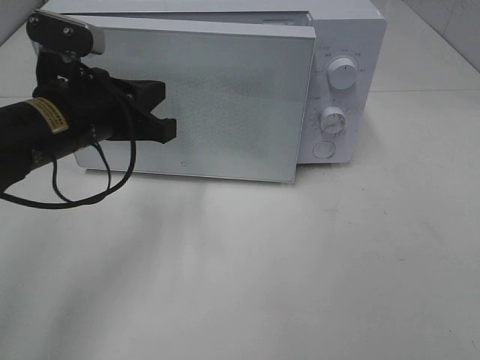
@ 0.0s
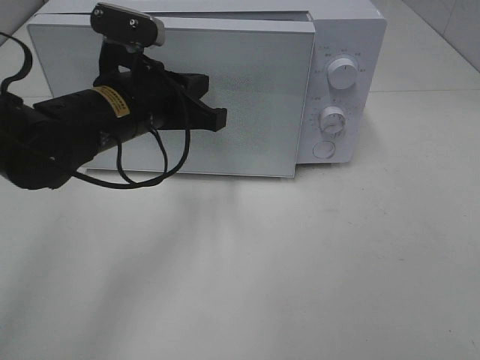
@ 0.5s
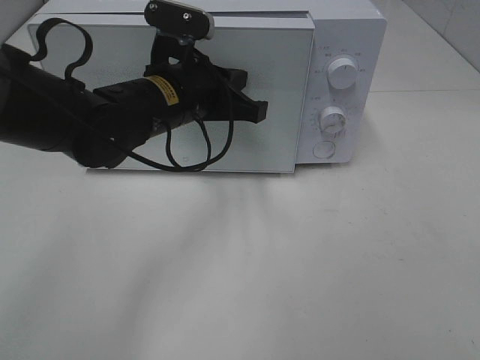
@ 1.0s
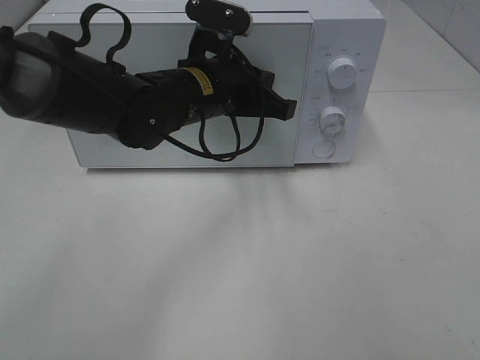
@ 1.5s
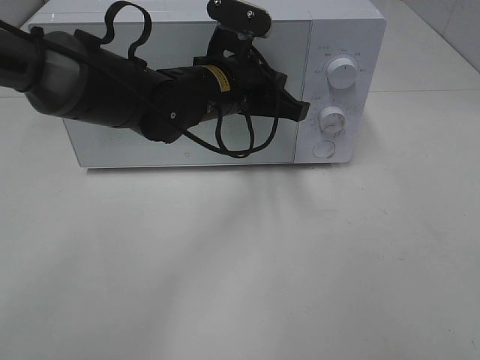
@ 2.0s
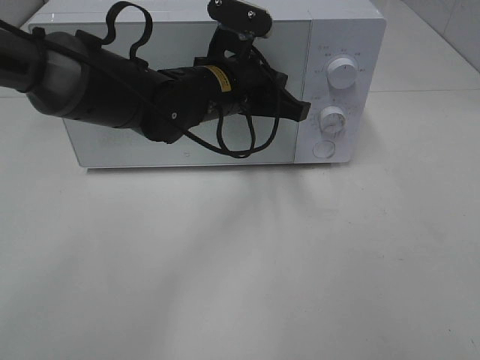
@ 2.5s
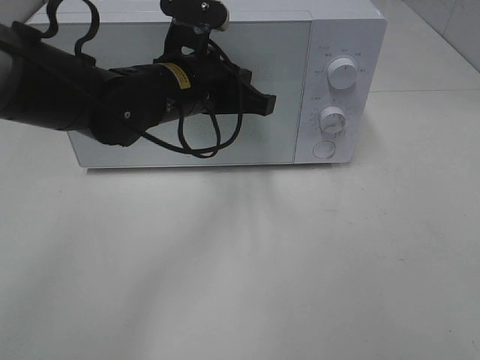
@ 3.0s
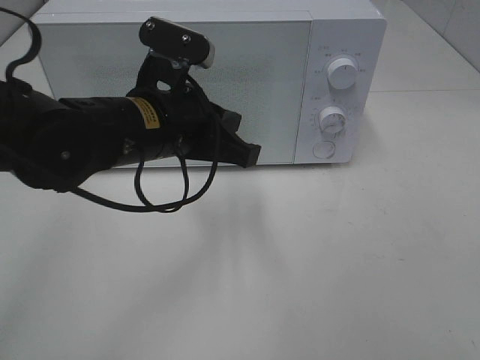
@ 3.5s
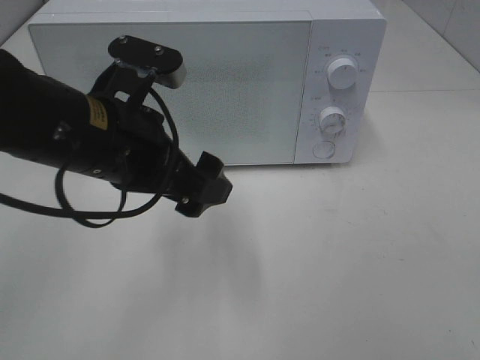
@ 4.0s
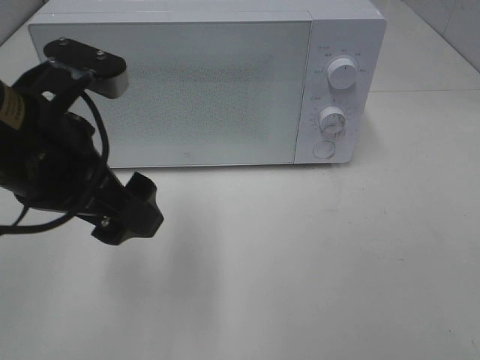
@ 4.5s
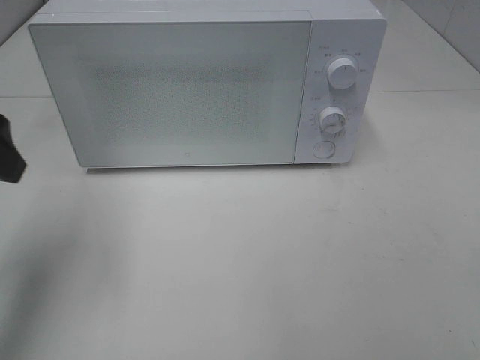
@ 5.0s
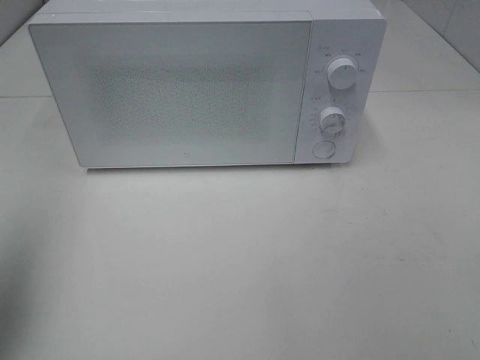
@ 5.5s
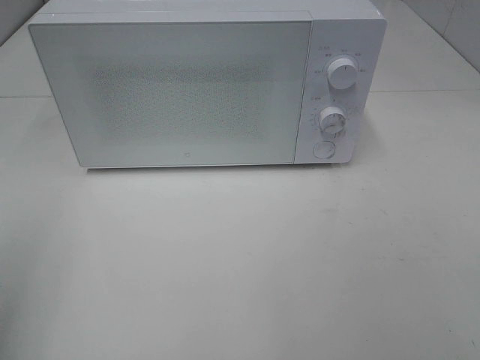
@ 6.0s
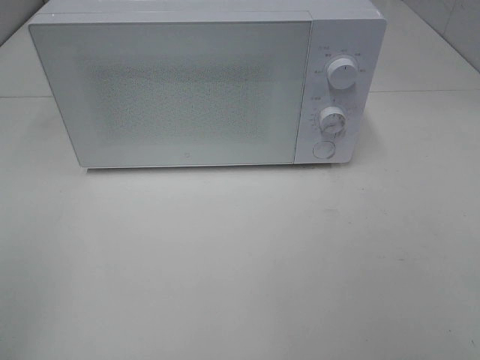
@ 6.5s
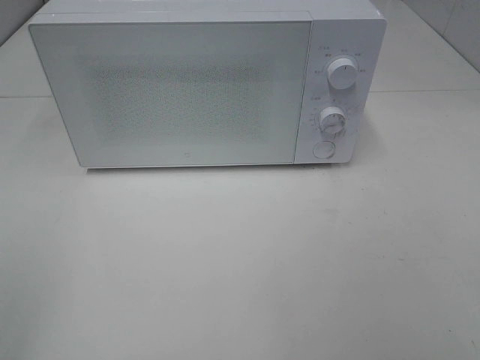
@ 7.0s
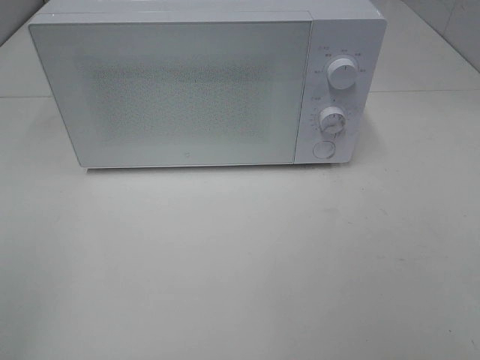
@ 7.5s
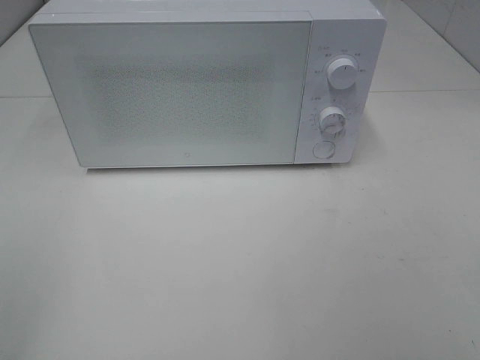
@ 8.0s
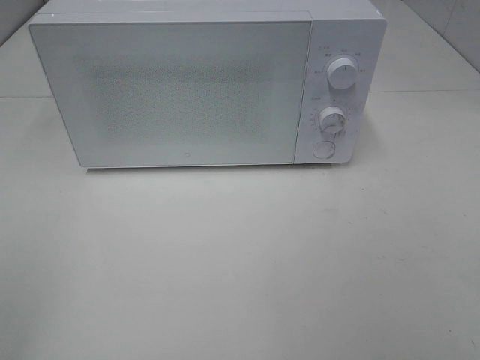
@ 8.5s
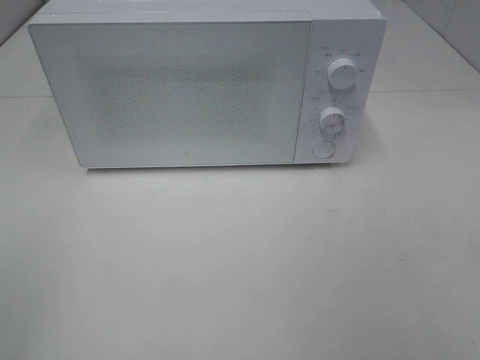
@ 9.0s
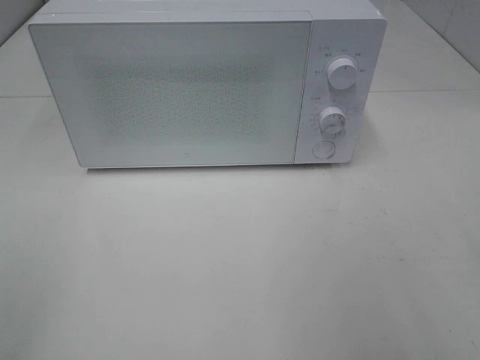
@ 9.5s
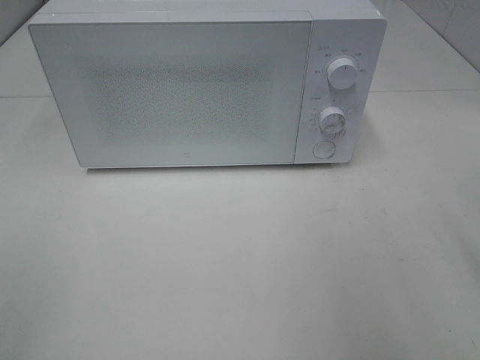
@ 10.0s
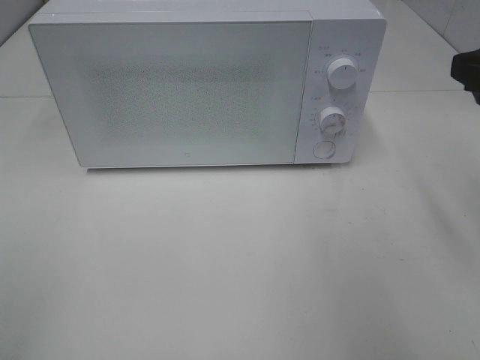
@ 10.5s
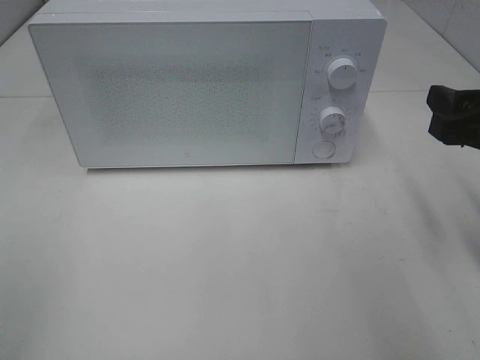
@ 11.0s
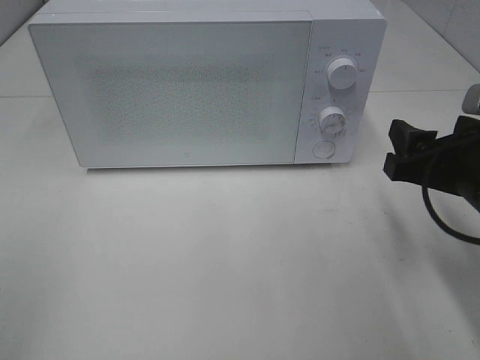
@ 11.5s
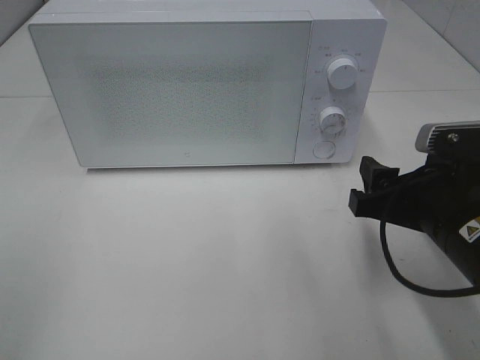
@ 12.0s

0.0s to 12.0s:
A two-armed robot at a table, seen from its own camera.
Task of the whole recording: Heat Sandwich.
Step, 0.0s to 3.0s: Left hand: close the microwave door.
0.0s to 2.0s: The left gripper heads to the right and forward, covering some 15 cm.
2.0s to 4.0s: The left gripper goes about 15 cm backward and to the left, and opens up.
4.0s to 6.0s: The left gripper travels to the left and backward by about 25 cm.
10.0s to 12.0s: The right gripper heads downward and to the left, covering approximately 15 cm.

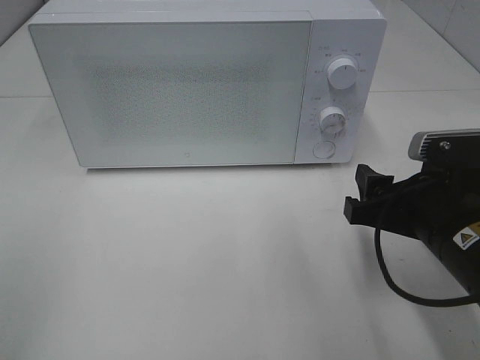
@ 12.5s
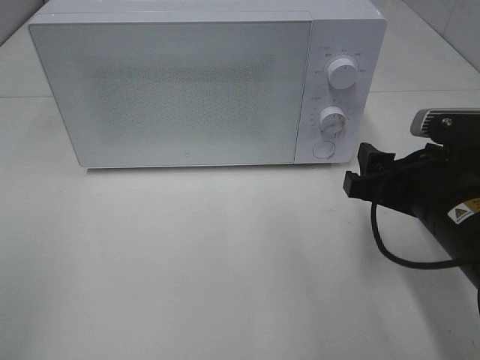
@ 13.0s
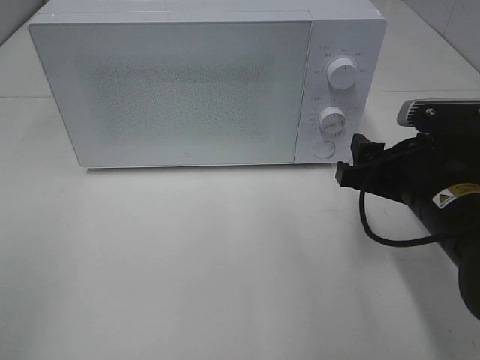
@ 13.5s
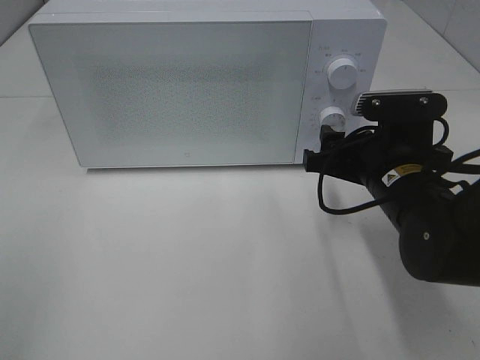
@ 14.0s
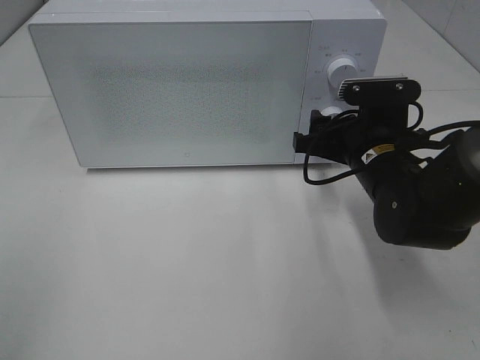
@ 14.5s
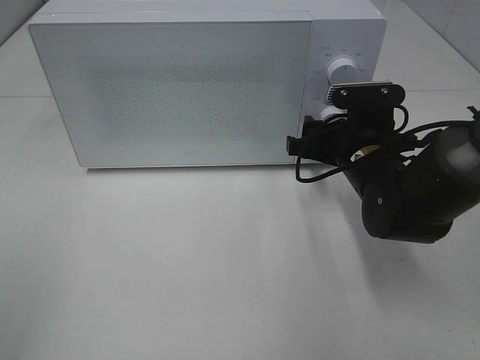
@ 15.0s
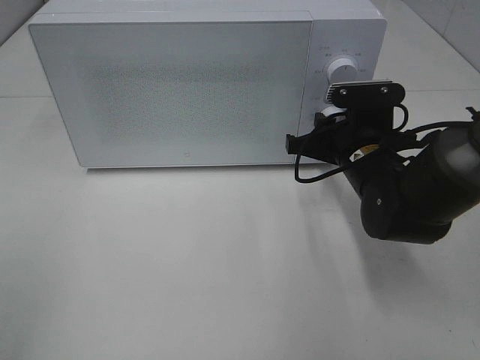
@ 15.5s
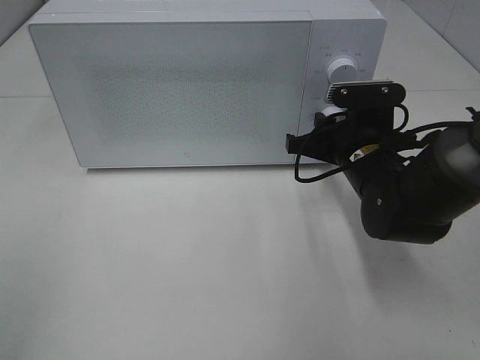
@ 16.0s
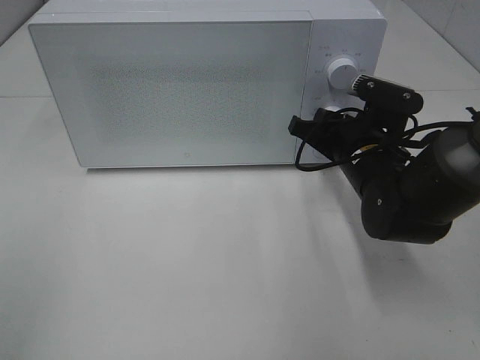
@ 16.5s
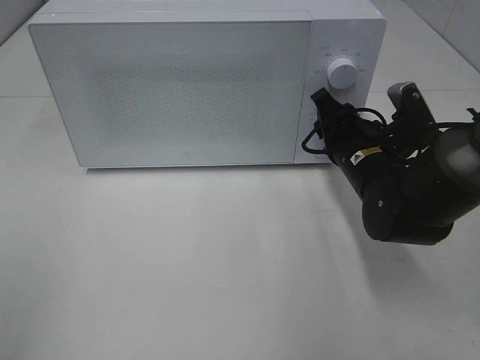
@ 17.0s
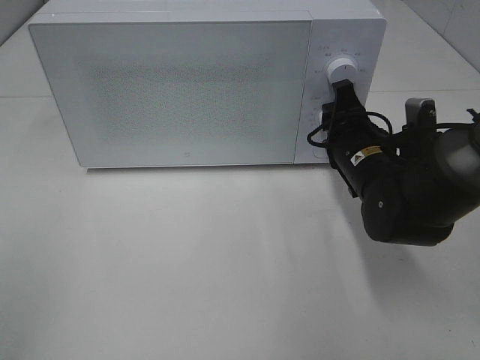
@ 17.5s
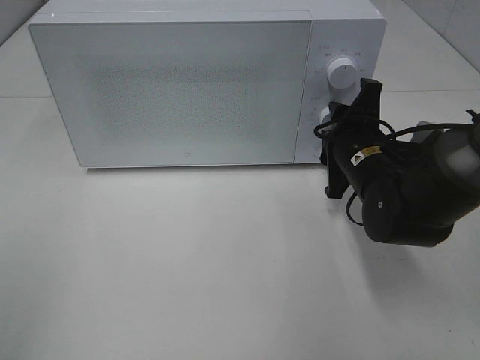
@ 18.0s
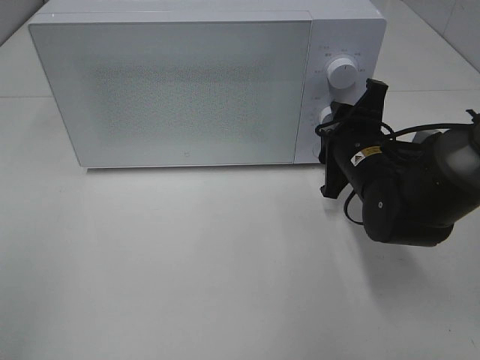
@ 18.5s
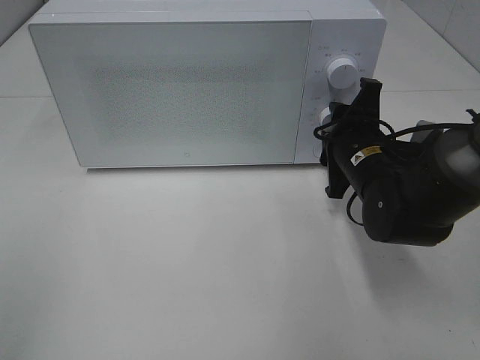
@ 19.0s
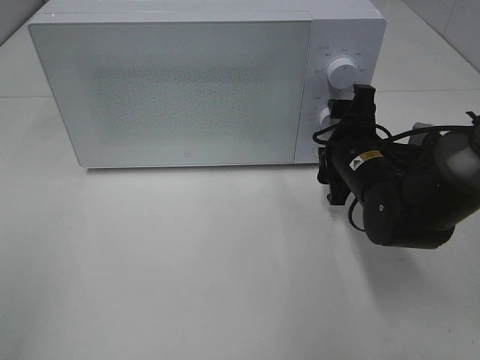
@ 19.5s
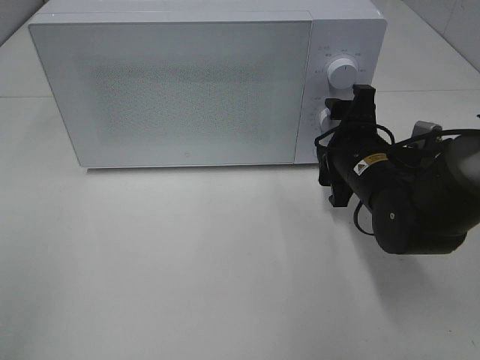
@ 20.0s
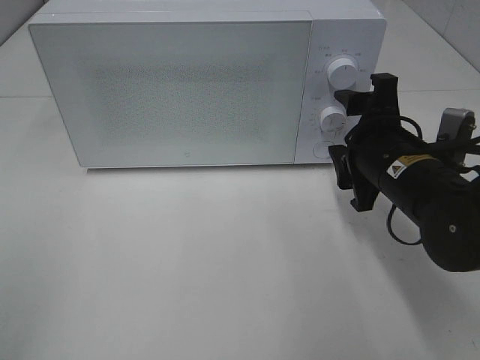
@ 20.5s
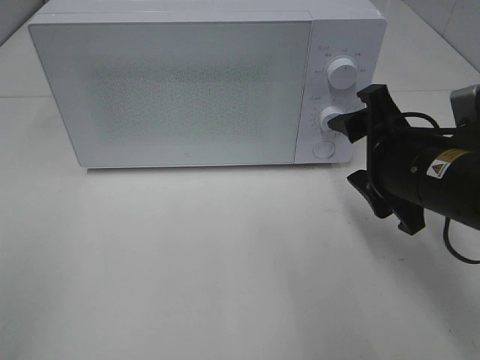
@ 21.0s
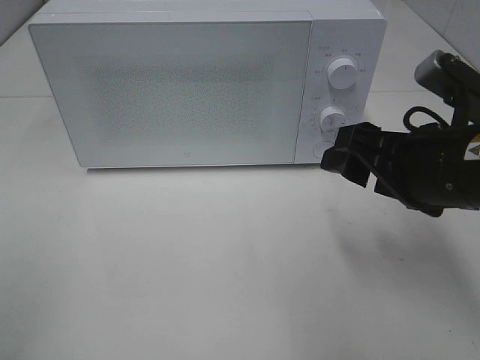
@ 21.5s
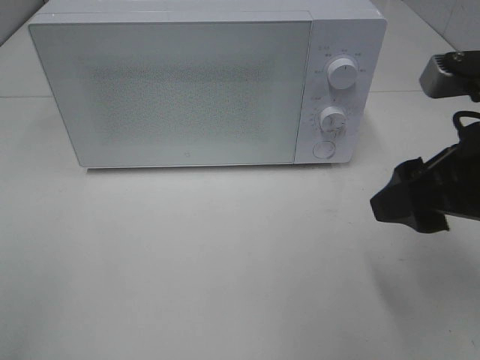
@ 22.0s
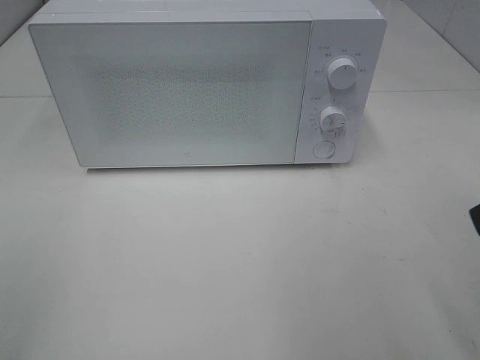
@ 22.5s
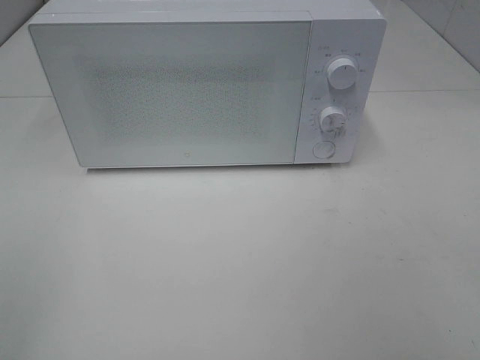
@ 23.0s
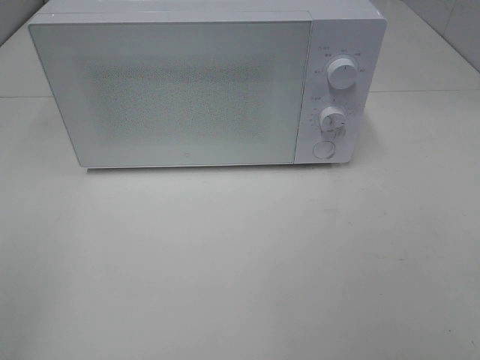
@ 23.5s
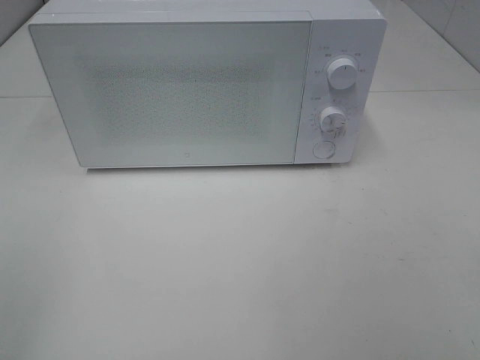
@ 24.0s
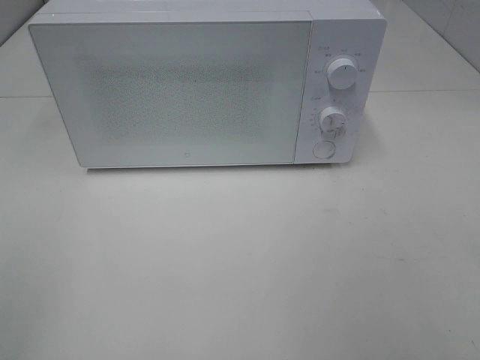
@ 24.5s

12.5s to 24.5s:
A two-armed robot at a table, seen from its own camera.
Task of the whole recording: Heat Sandwich.
Step, 12.5s to 20.0s: Right hand: twist timer button.
12.5s to 14.5s: The right gripper shifts approximately 10 cm forward.
14.5s to 16.5s: The right gripper closes its fingers.
18.5s to 20.5s: The right gripper ends up about 5 cm from where it was, and opens up.
20.5s to 22.5s: The right gripper heads backward, upward and to the right, covering approximately 25 cm.

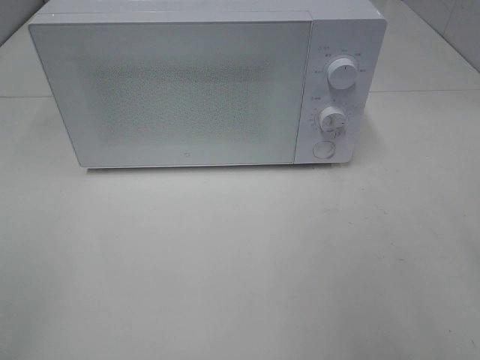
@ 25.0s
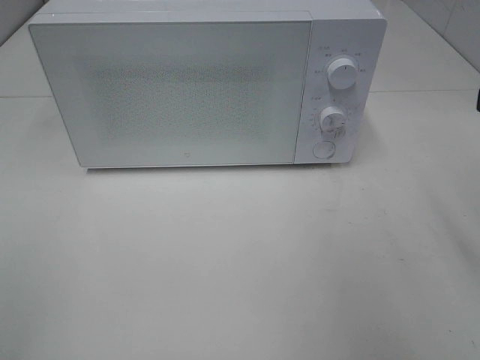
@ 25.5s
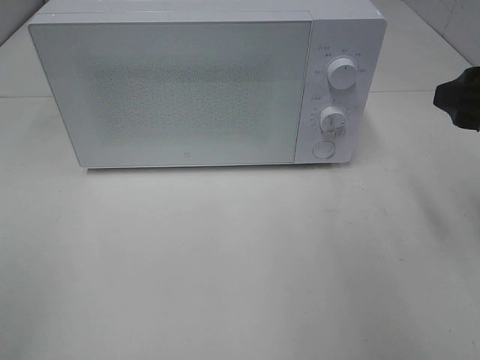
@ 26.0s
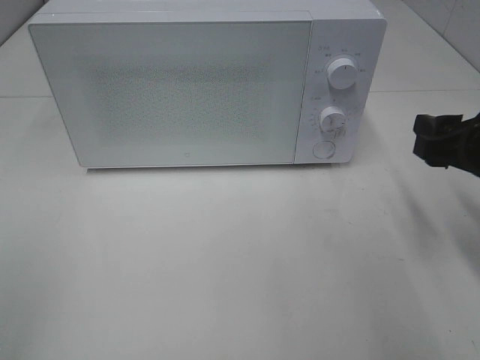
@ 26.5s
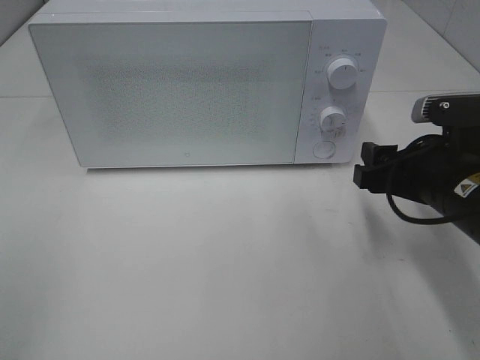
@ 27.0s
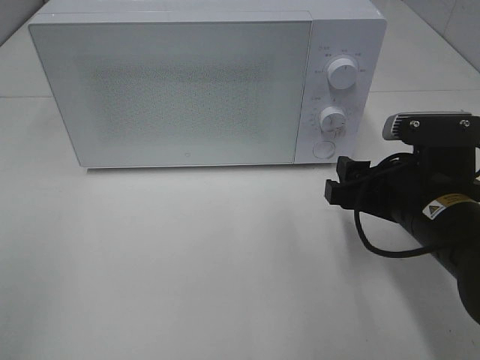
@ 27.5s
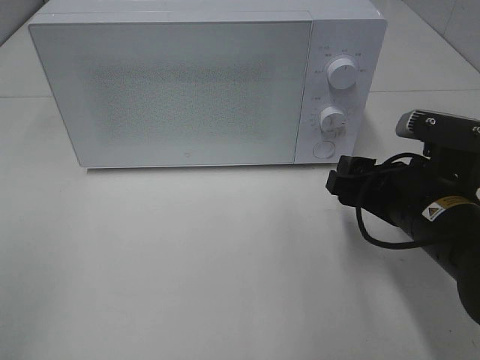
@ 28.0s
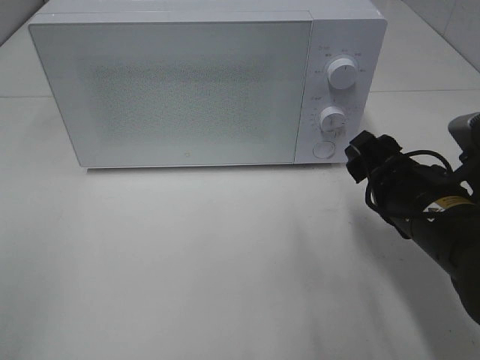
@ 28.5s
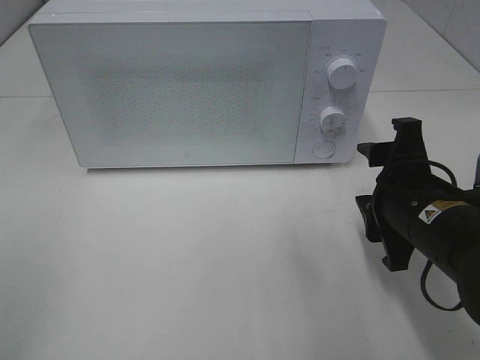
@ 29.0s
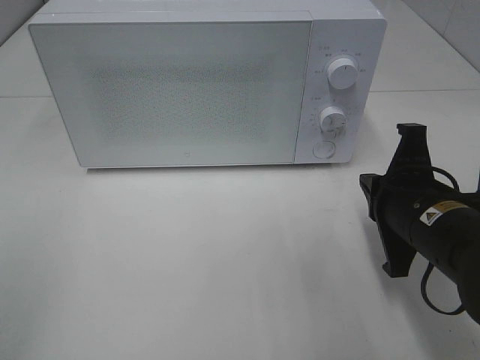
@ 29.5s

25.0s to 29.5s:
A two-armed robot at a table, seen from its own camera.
Task of the whole recording: Heat Sandwich.
25.0s to 27.0s: The right gripper heads downward, forward and to the left, covering roughly 20 cm.
27.0s to 29.5s: The right gripper closes.
